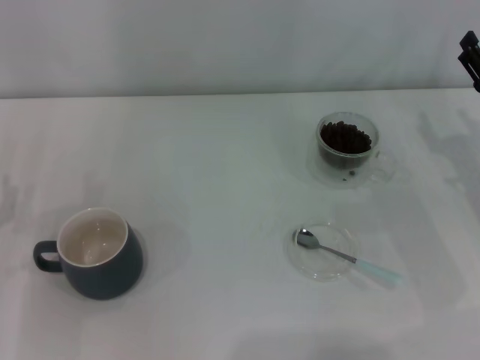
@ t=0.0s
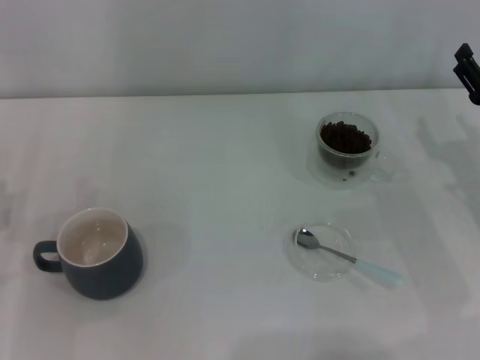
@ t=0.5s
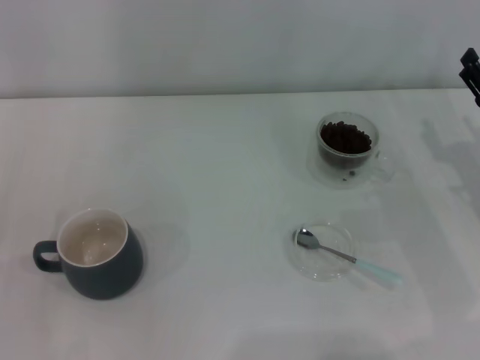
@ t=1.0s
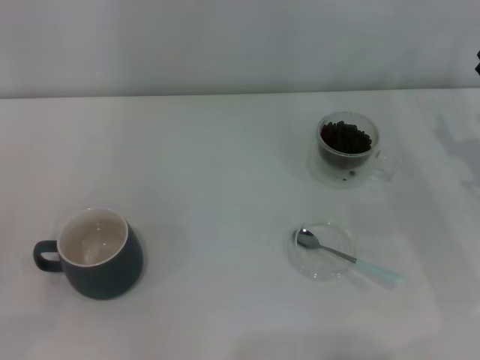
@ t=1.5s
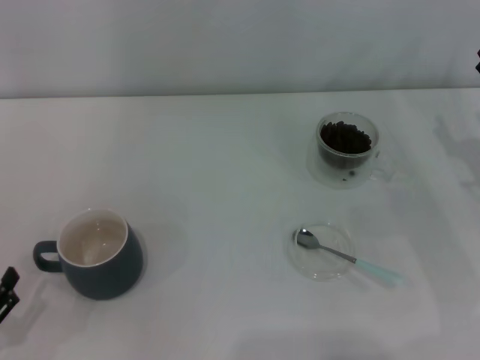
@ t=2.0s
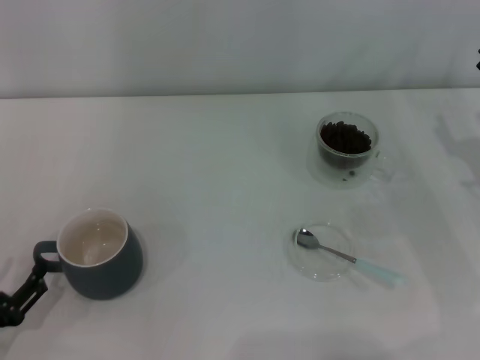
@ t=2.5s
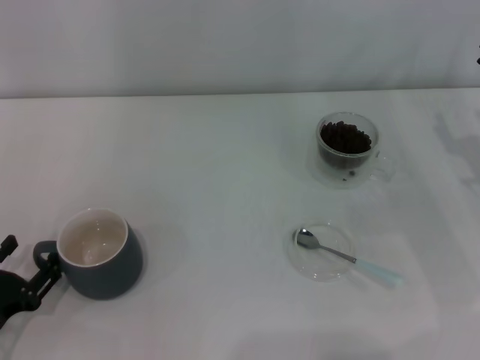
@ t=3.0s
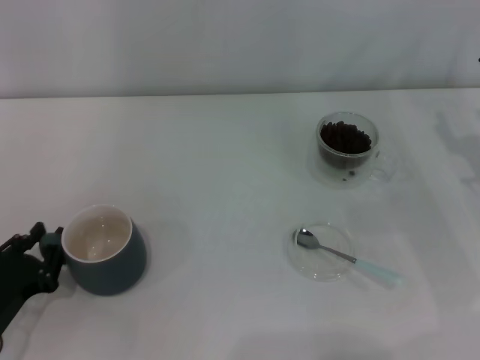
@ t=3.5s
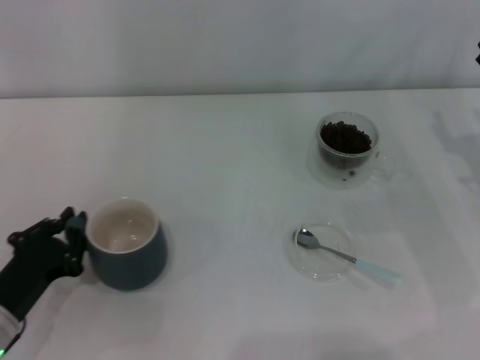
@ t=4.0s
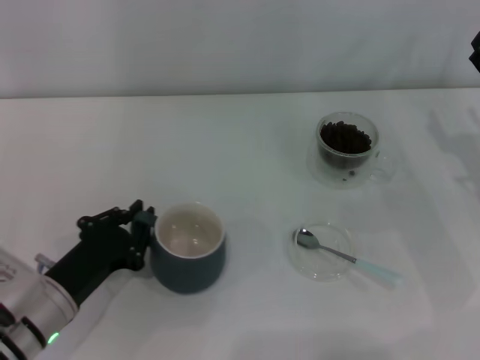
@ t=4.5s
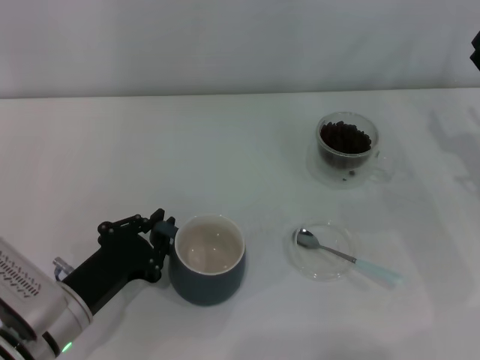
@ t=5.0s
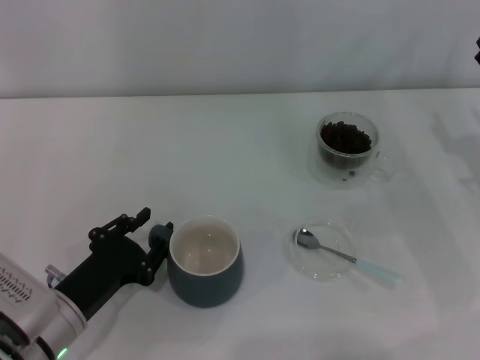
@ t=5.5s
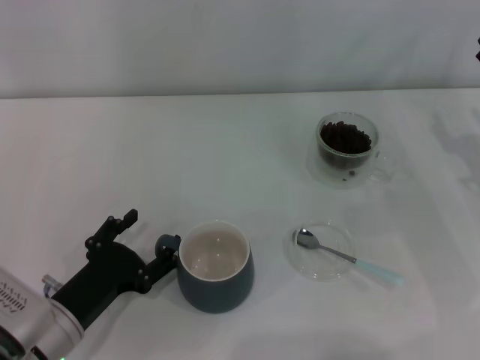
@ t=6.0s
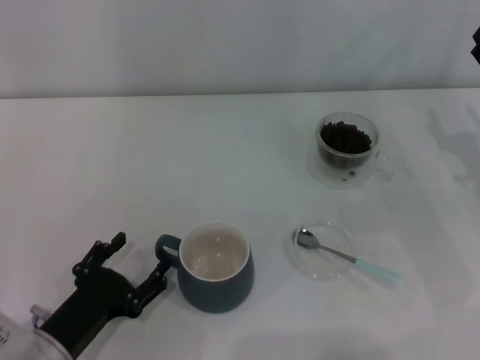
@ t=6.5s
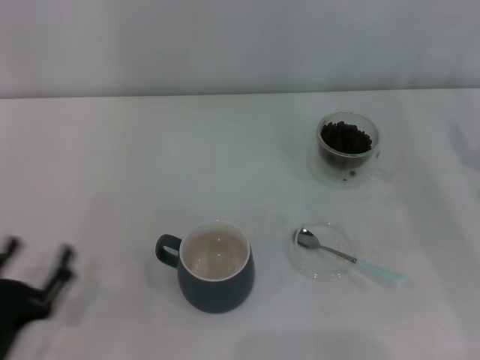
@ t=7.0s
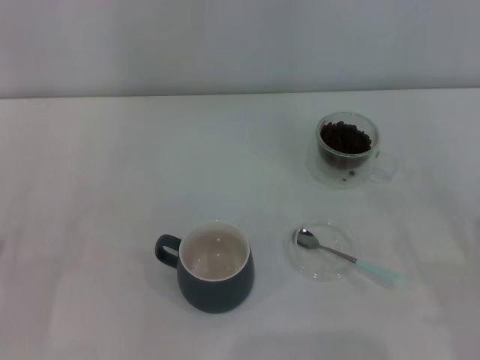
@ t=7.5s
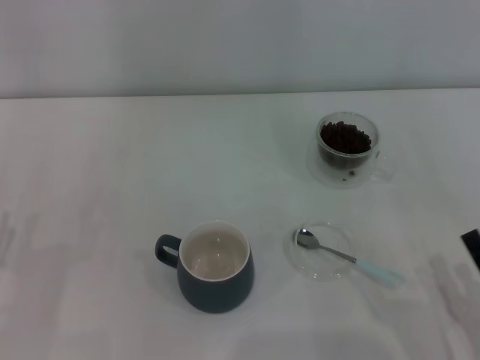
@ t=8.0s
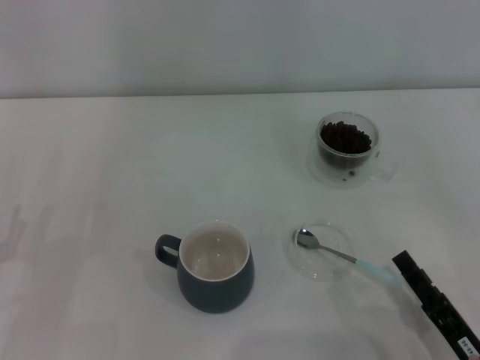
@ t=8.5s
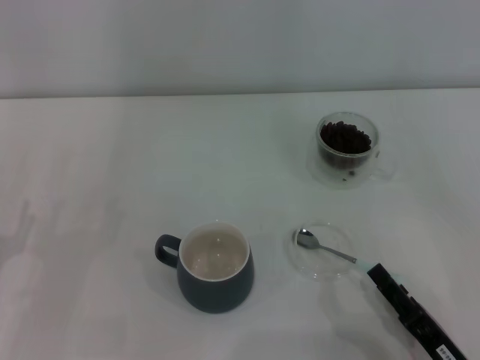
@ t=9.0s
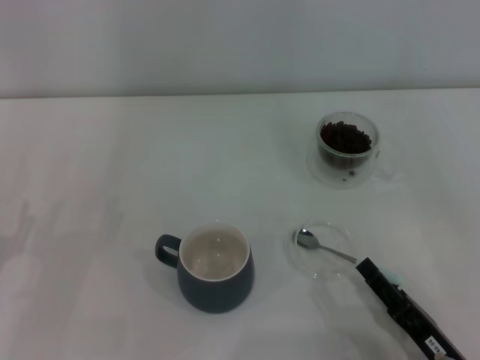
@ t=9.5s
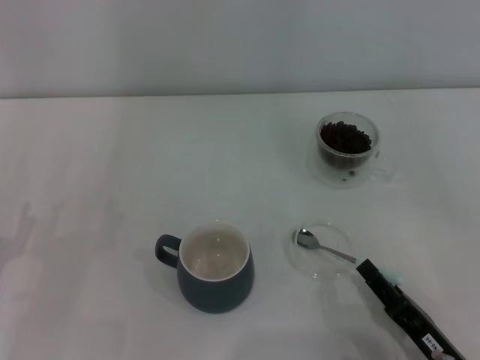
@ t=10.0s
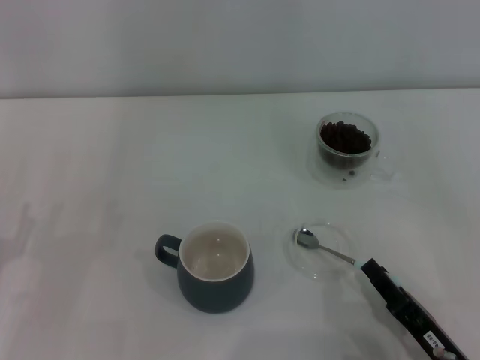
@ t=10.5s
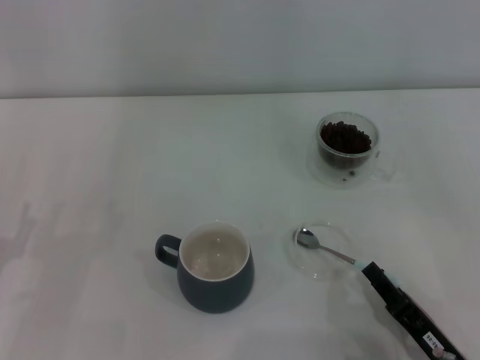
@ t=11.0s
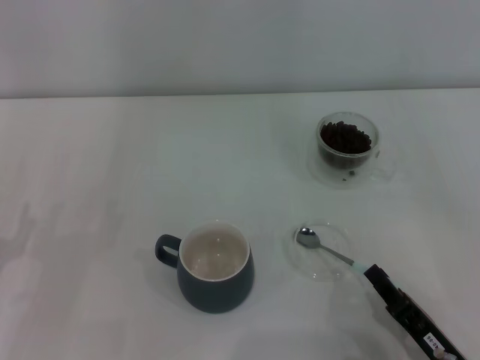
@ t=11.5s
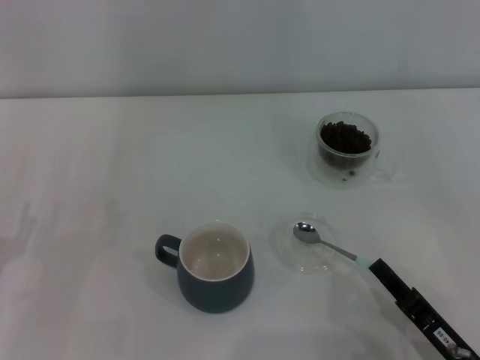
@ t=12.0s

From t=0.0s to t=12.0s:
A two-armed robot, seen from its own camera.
Task of the whole recording: Use a blue spoon to take out the coffee beans from the glass and pour them into the gray cup.
Step, from t=0.0s to t=6.5s: Move the cup to the center of view with the left gripper.
From t=0.0s to t=2.0s: The left gripper heads backward, covering some 10 cm.
From t=2.0s to t=4.0s: The left gripper is displaced forward and to the right by approximately 10 cm, and closes up.
From t=4.0s to t=6.0s: The left gripper travels to the right by roughly 5 cm, and opens up.
From t=6.0s to t=8.0s: The left gripper goes some 10 cm to the left; the right gripper travels backward by roughly 20 cm.
From t=8.0s to t=10.0s: The right gripper shifts by some 5 cm.
From t=10.0s to t=12.0s: The right gripper closes up.

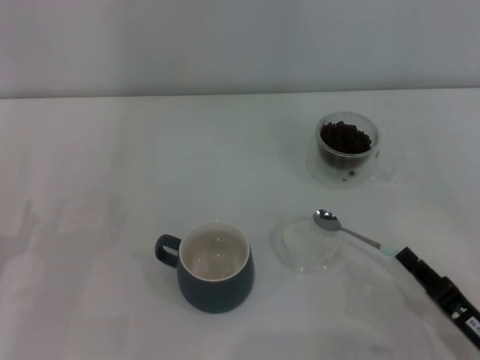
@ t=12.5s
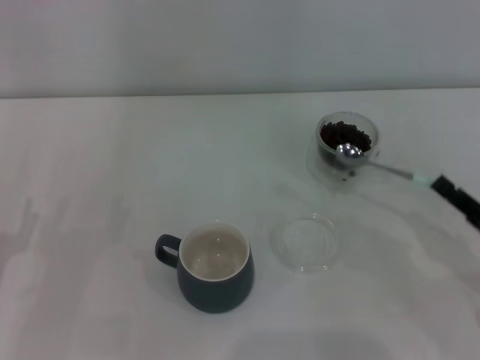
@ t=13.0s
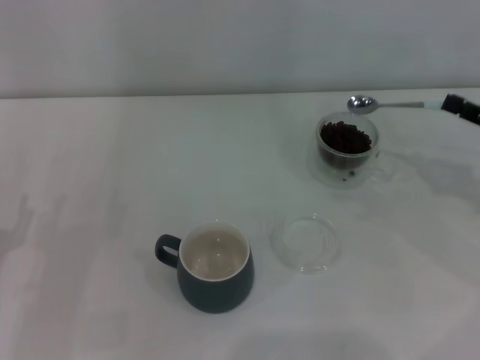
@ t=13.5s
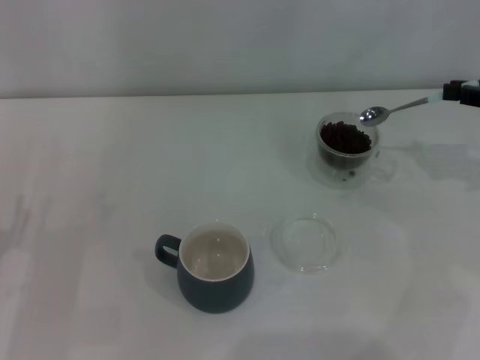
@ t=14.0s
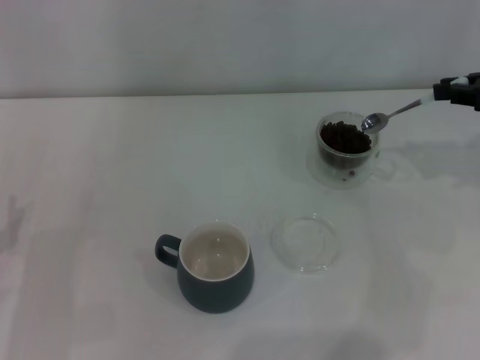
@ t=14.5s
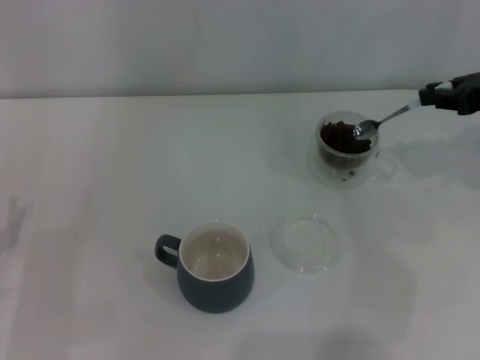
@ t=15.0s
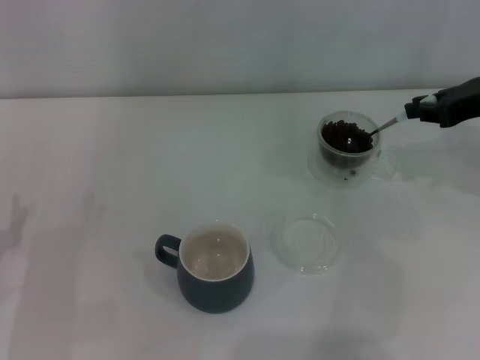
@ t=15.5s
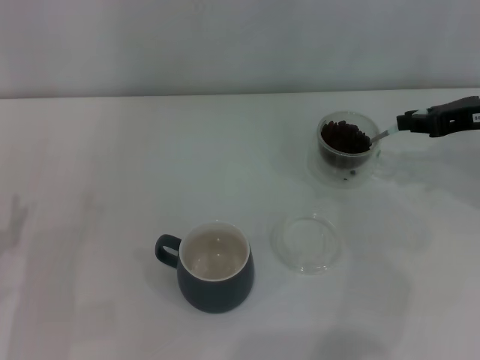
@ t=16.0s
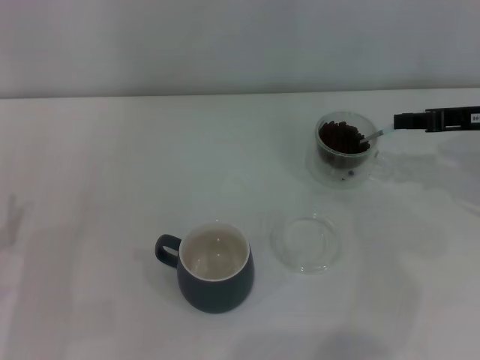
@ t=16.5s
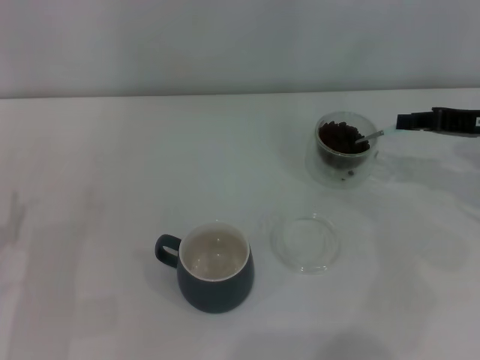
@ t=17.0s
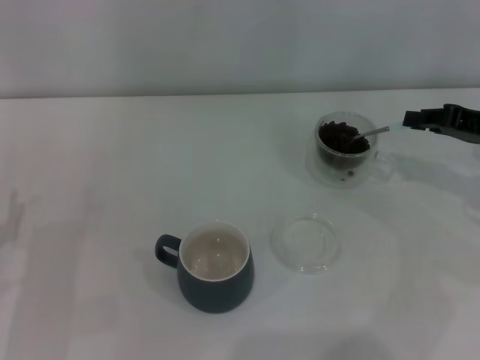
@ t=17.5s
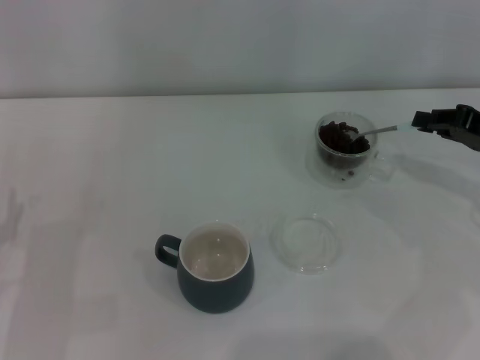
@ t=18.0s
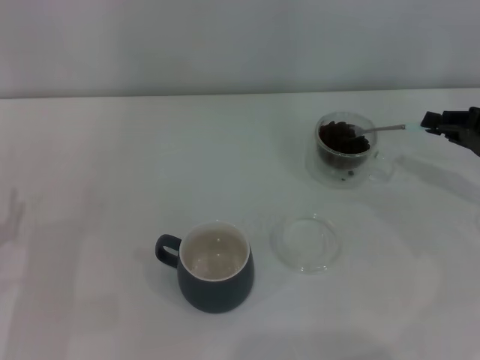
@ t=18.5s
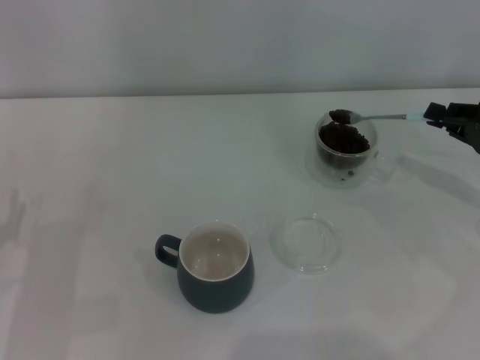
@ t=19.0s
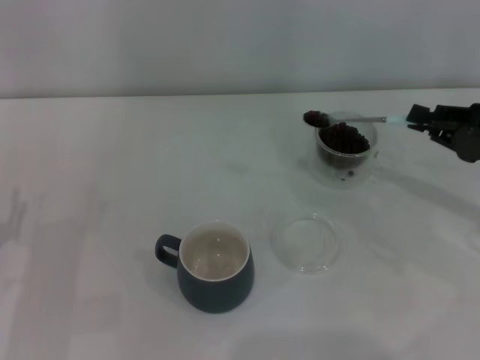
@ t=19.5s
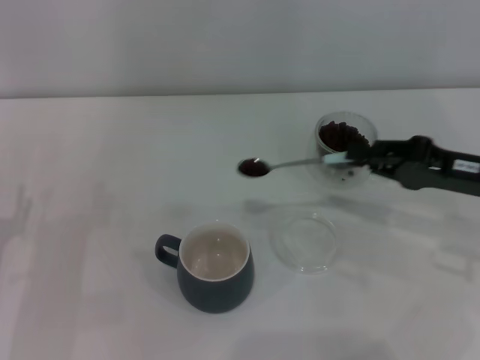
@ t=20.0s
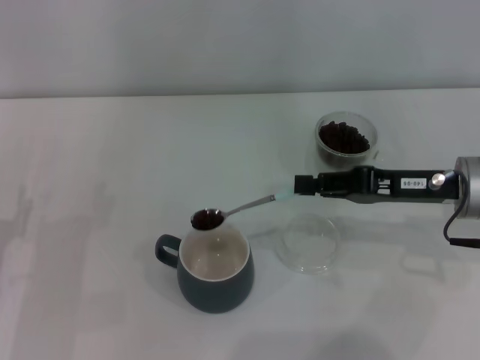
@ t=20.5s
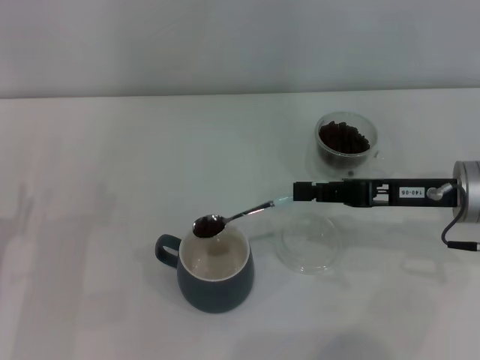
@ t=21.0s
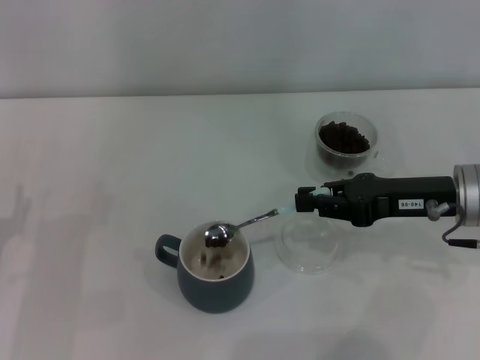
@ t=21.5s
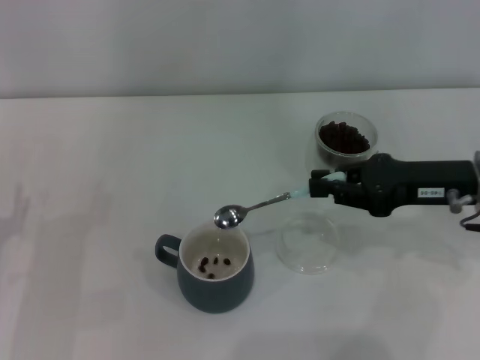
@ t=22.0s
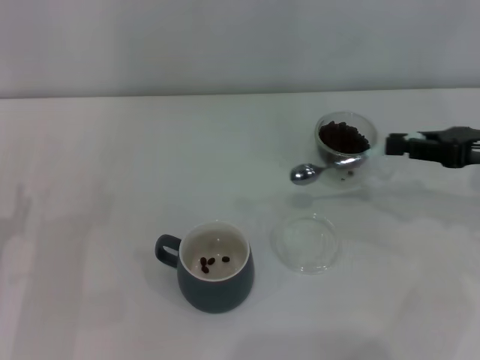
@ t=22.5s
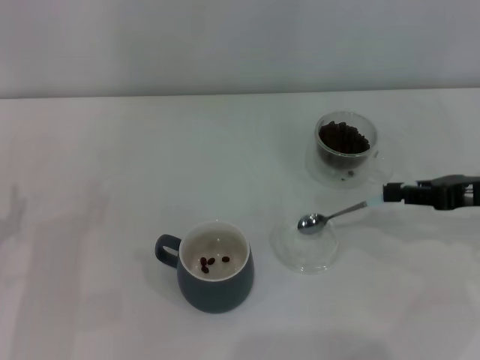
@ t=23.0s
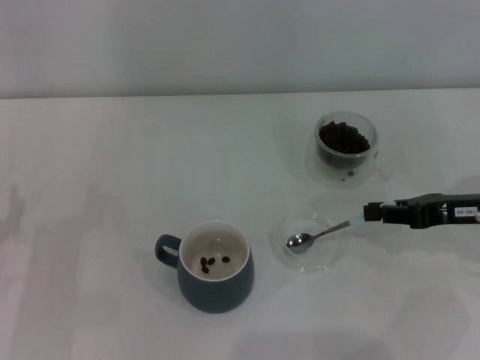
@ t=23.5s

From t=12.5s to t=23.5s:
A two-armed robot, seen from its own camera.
Task of the whole recording: Use a blue spoon to take out the coffee beans from the glass and pour them into the gray cup.
Step, from t=12.5s to t=21.5s: Scoop a spoonful of beans into the cup with the right gripper.
From t=12.5s to t=14.5s: The right gripper travels forward, upward and to the right by approximately 30 cm.
From t=14.5s to t=16.0s: The right gripper moves approximately 5 cm.
From t=16.0s to t=18.0s: The right gripper changes place by roughly 5 cm.
From t=18.0s to t=20.0s: The right gripper is displaced to the left by approximately 5 cm.
From t=21.5s to t=23.5s: The right gripper travels to the right by roughly 5 cm.

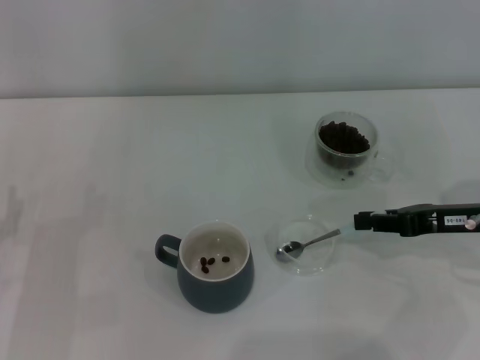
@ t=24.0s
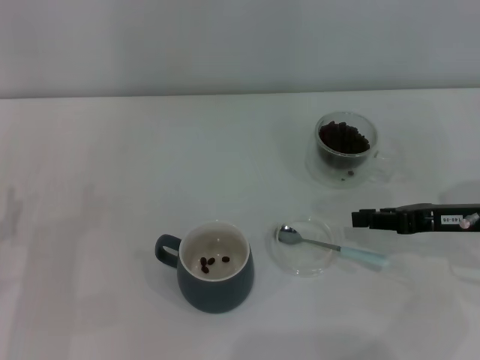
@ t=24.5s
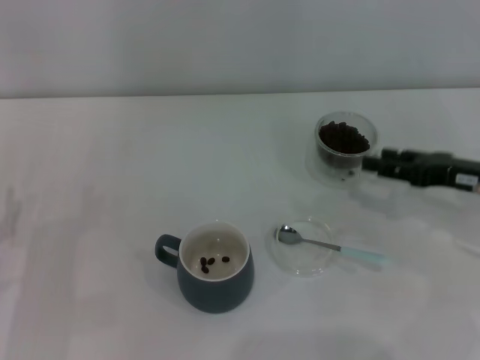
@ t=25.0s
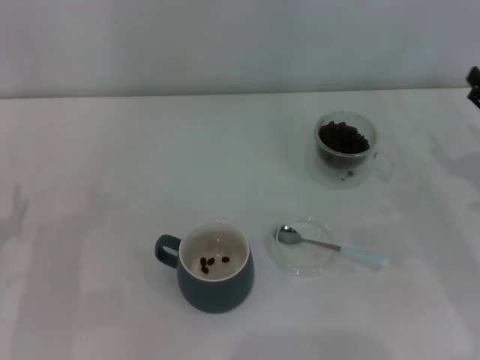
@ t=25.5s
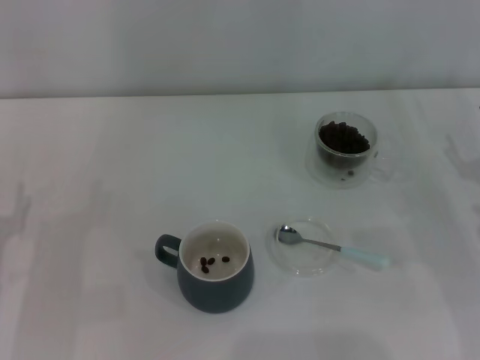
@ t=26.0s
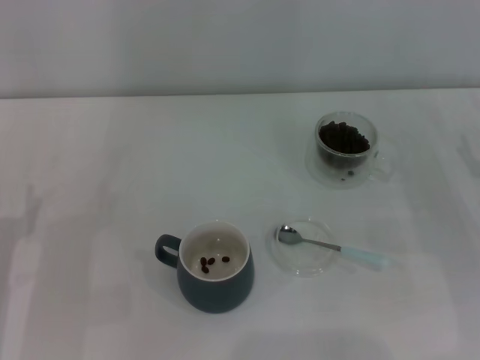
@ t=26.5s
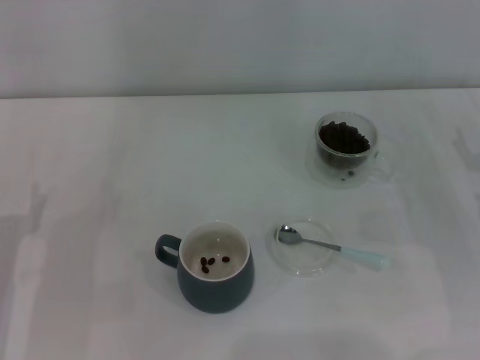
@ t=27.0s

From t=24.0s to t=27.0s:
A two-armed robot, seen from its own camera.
Task of the whole recording: Use a blue spoon to take out the coffee beans from the glass and pour them into the gray cup.
From t=24.0s to t=25.5s: The right gripper opens.
